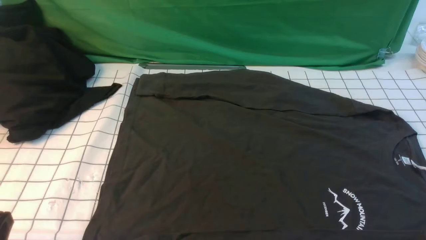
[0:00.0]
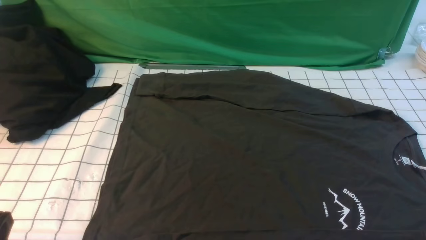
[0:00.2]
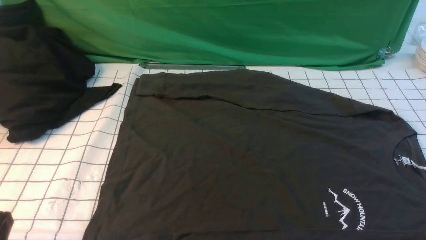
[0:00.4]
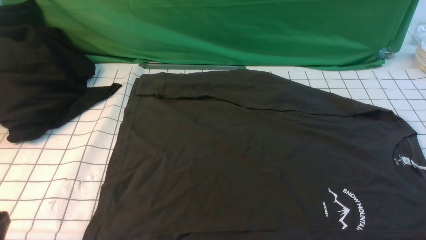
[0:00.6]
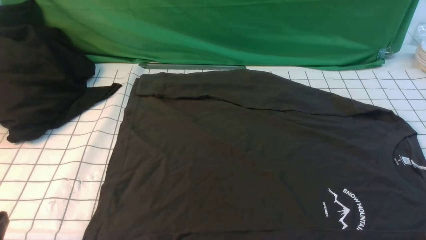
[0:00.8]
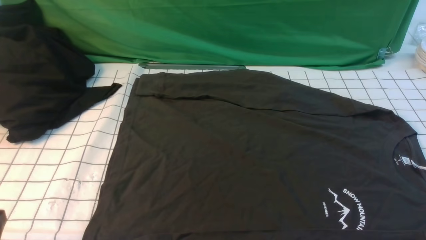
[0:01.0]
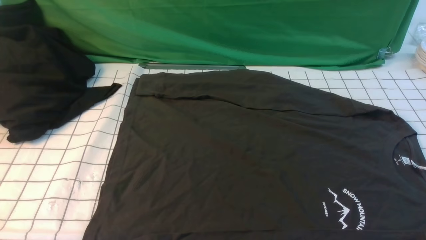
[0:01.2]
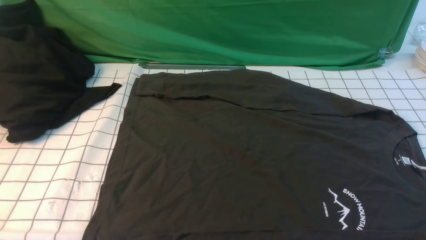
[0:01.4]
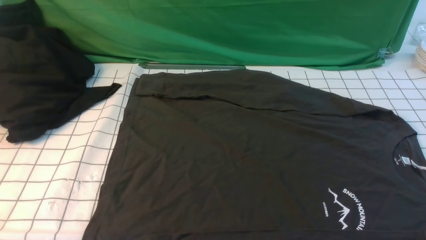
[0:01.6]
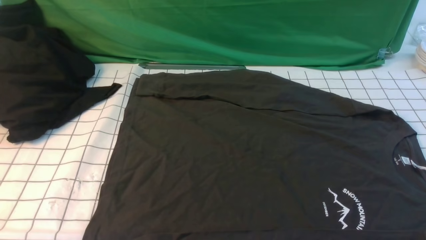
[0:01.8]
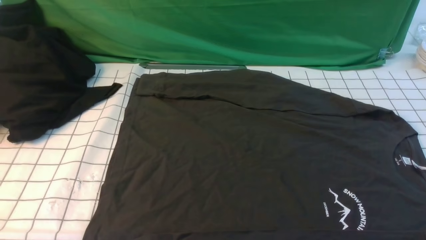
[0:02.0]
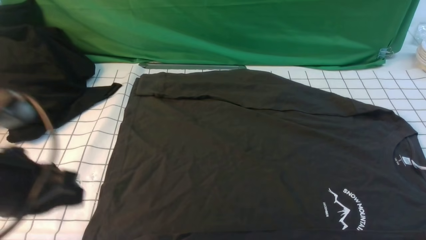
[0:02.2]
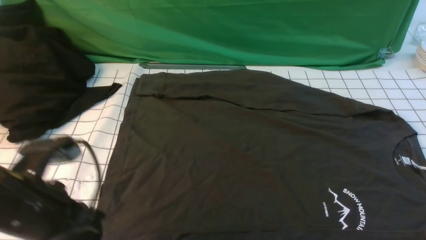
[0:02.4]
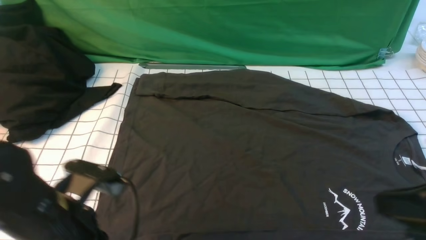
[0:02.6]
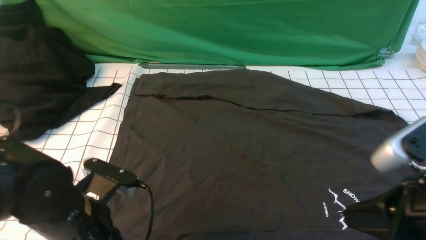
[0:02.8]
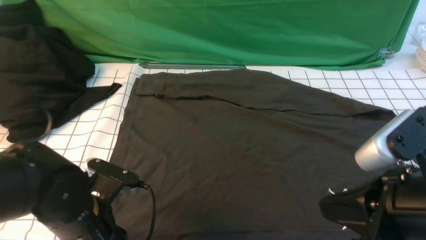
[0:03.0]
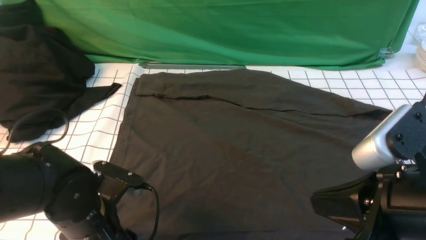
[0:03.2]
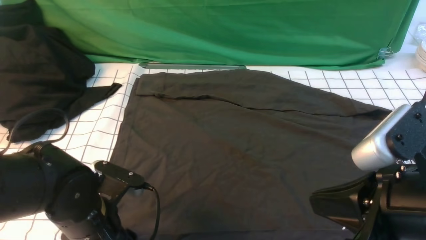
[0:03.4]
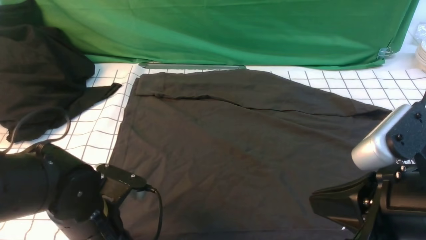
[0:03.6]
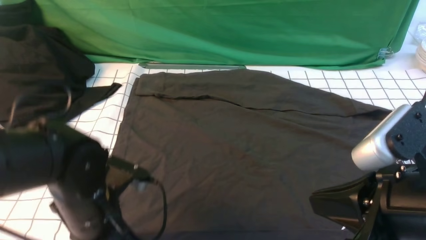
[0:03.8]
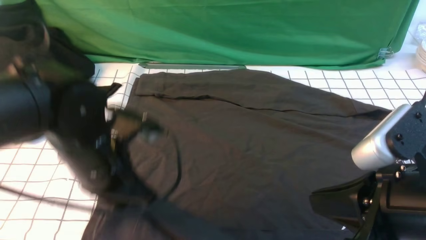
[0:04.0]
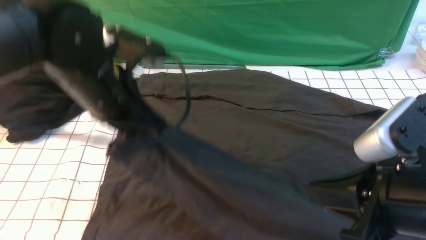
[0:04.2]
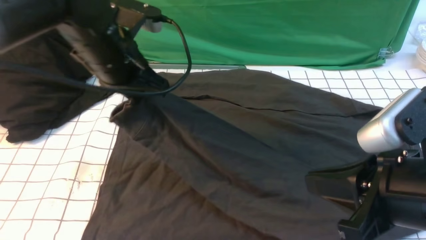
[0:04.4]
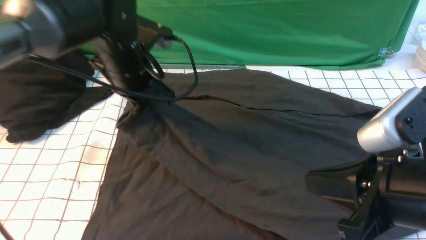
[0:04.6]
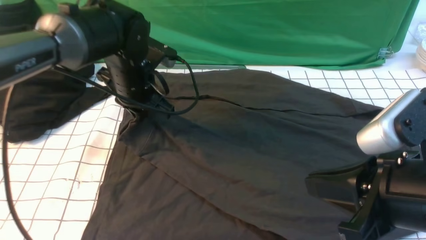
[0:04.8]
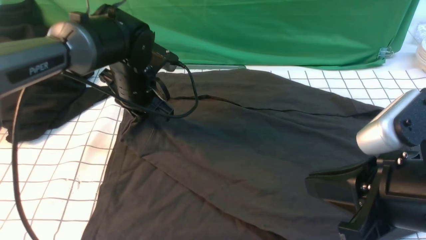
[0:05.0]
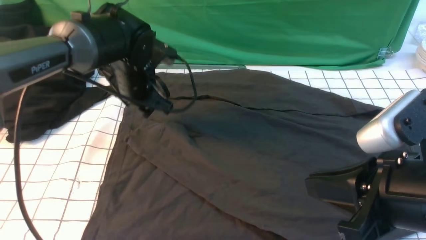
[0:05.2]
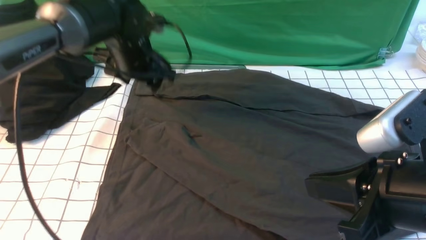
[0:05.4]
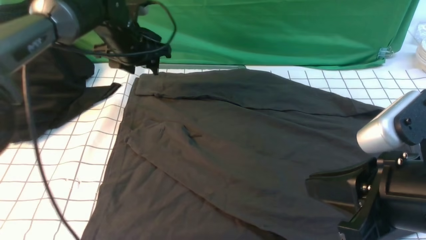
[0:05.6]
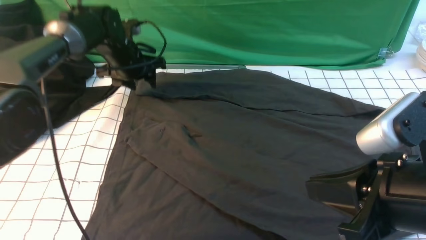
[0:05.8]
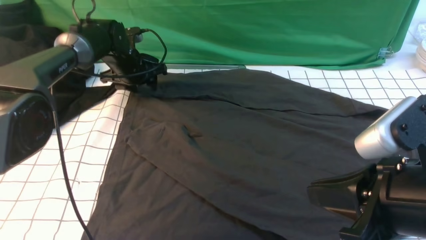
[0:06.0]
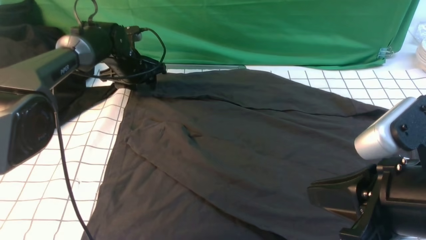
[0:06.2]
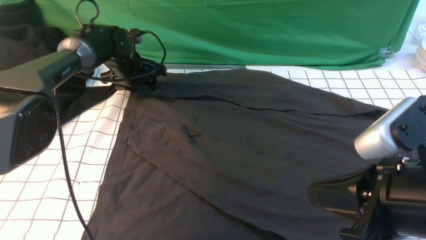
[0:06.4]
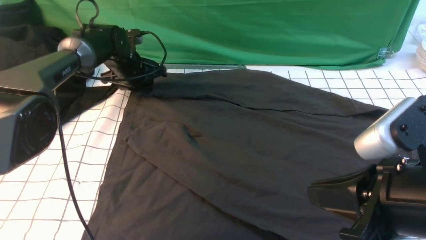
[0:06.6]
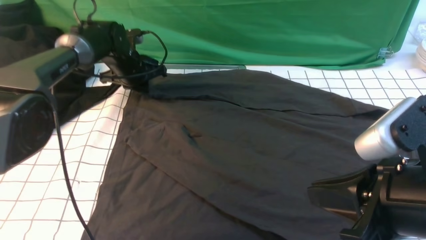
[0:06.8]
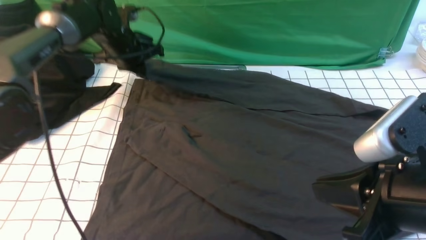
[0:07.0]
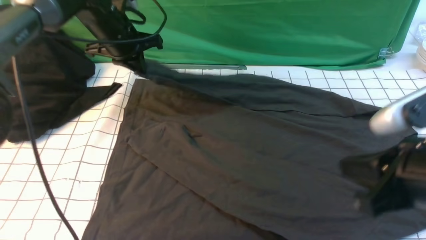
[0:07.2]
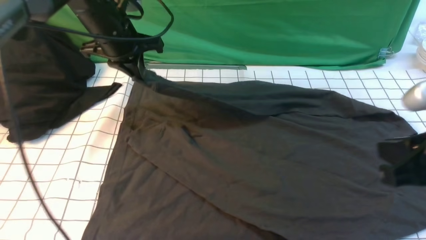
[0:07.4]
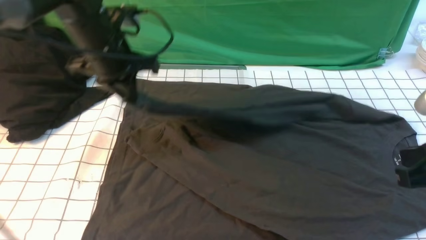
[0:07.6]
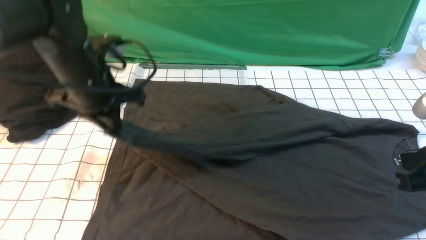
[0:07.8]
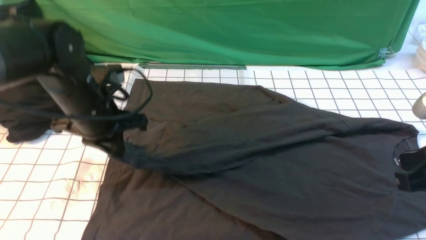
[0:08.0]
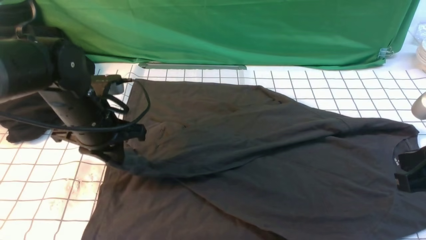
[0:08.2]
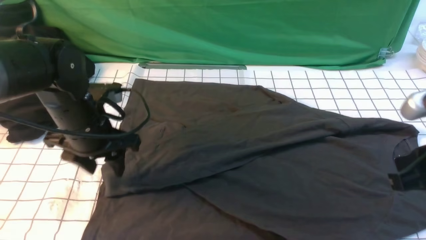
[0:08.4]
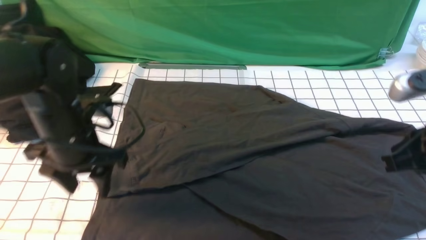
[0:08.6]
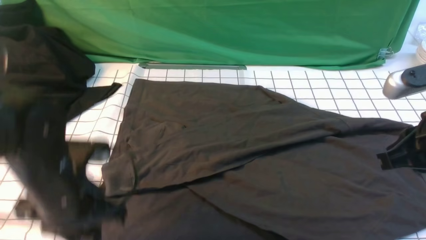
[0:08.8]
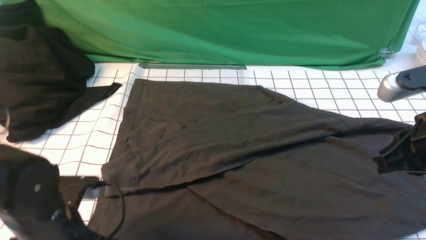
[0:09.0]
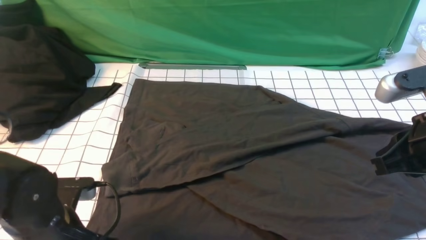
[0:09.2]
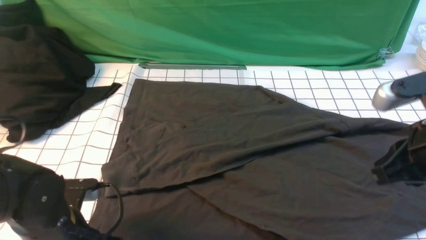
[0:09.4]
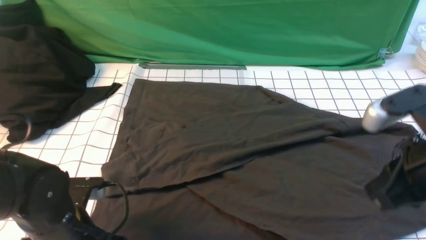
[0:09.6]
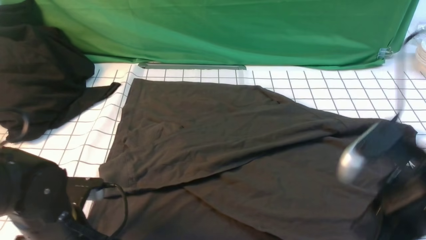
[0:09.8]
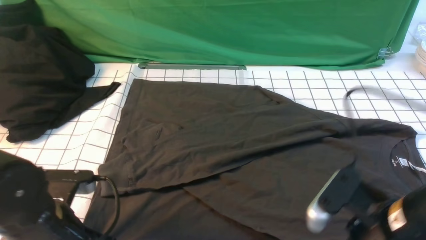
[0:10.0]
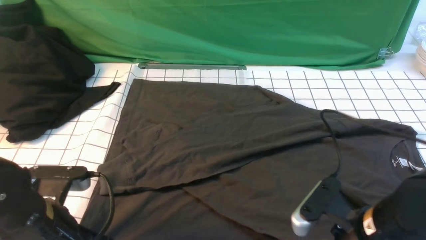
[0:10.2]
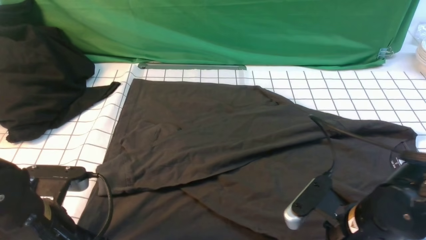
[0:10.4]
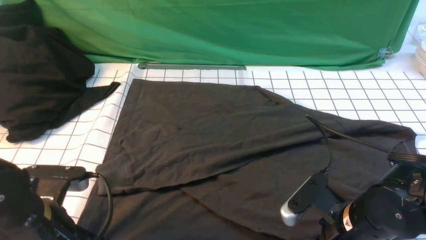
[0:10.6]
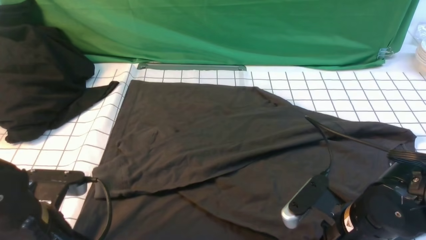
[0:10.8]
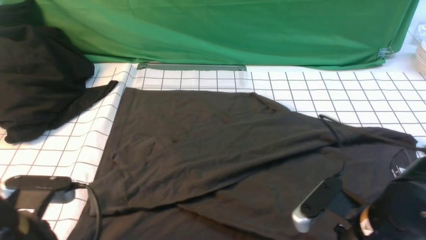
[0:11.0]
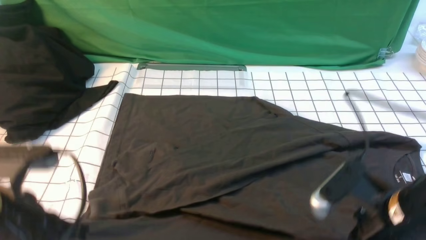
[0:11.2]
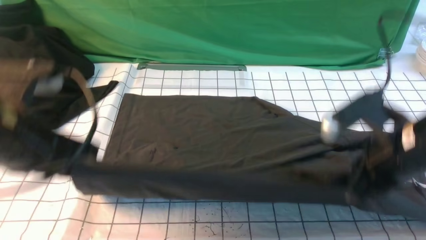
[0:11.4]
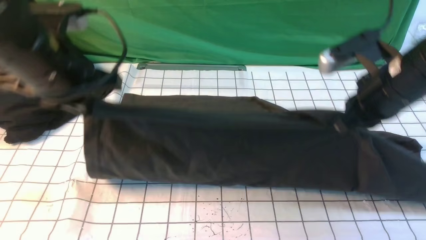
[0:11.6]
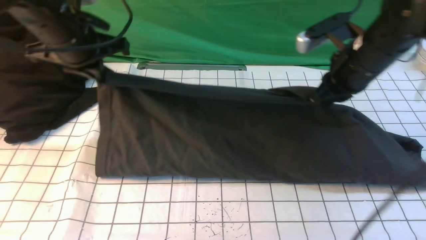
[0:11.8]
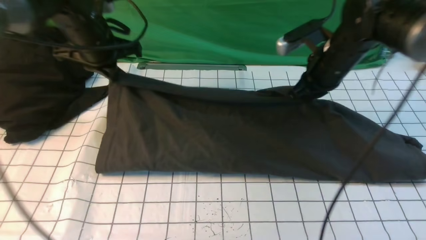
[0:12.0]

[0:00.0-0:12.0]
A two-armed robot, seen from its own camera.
Step, 0.0 to 3.8 s: use the left arm to clamp the cuff closest to it.
Step, 4.0 to 5.2 s: use the left arm to drag and place the cuff at the centered position on the left edge of the fabric.
Step, 5.4 to 6.8 s: use the left arm to clamp the cuff farthest from it.
Step, 7.2 to 8.2 s: use the left arm to drag and drop the cuff onto the cuff closest to the left arm.
Step, 8.4 to 11.0 s: use both arms simultaneously to clamp the lower edge of the clothing fabric.
1.6 to 3.0 s: The right gripper goes approximately 15 cm to the left, upward and forward, and closes. Meanwhile the left gripper shifts about 20 cm forward, downward and to the right, and opens.
3.0 to 4.4 s: The left gripper is displaced forward and upward by some 20 cm, and closes its fingers.
4.4 to 6.0 s: The left gripper heads forward and downward, covering some 25 cm, and opens.
6.0 to 7.6 s: The left gripper shifts about 20 cm backward and upward, and closes its fingers. The right gripper shifts roughly 5 cm to the right.
7.6 to 9.0 s: The left gripper is displaced backward and downward by about 25 cm, and opens up.
9.0 to 10.4 s: The right gripper goes about 15 cm downward and to the left, and opens up. The left gripper closes.
10.4 to 12.0 s: The two grippers go roughly 25 cm forward. The right gripper closes its fingers.

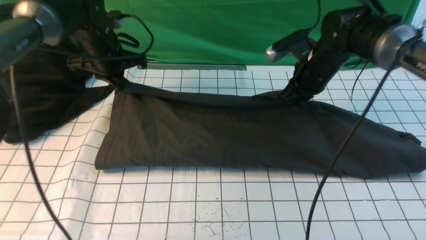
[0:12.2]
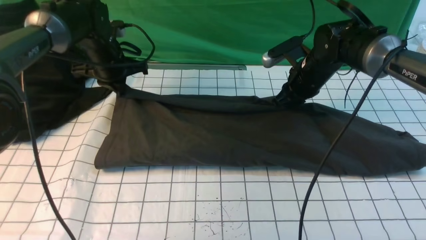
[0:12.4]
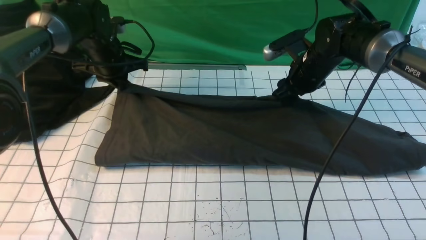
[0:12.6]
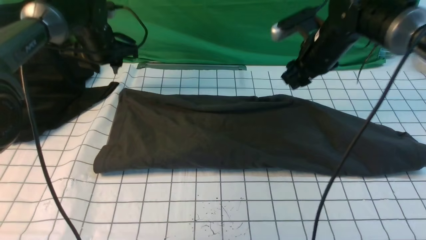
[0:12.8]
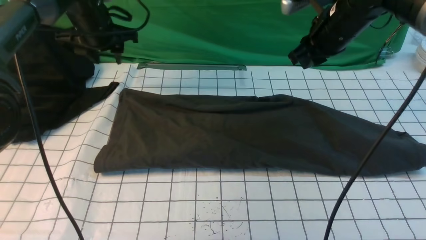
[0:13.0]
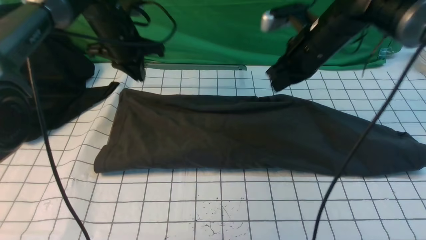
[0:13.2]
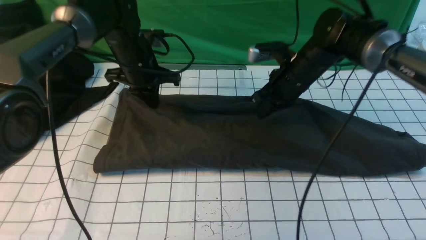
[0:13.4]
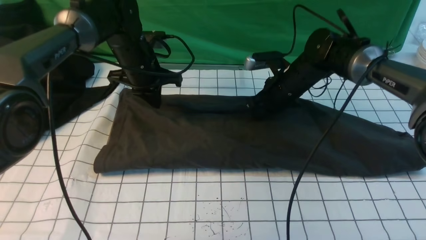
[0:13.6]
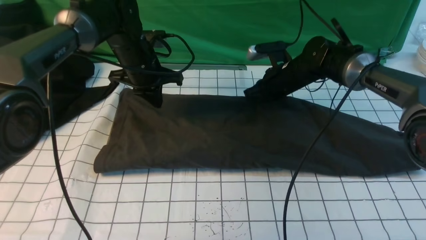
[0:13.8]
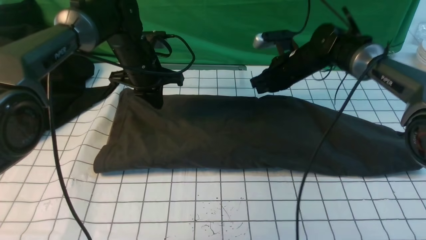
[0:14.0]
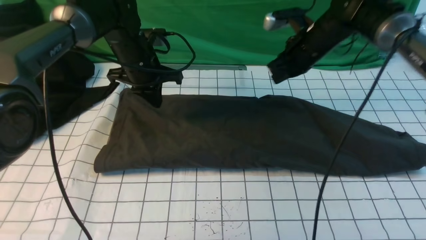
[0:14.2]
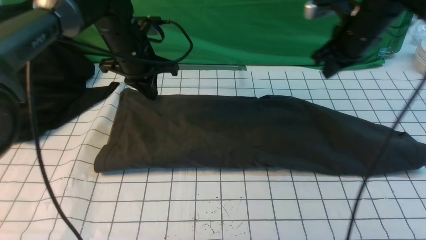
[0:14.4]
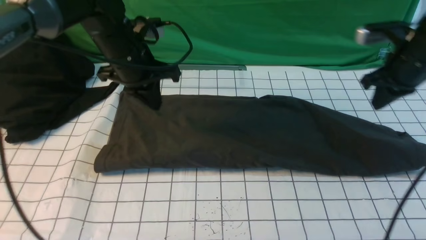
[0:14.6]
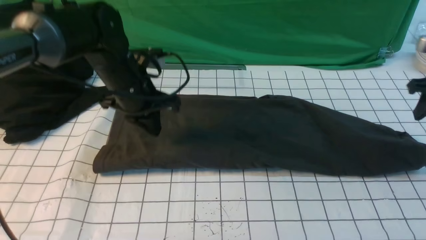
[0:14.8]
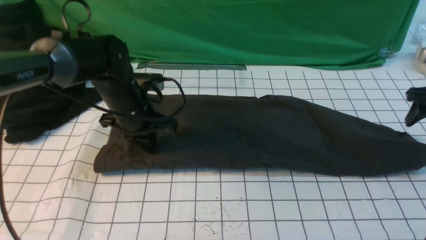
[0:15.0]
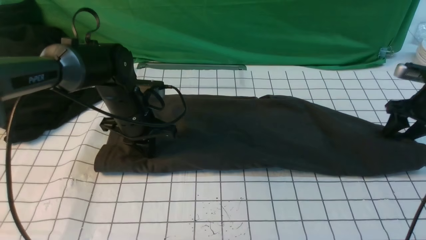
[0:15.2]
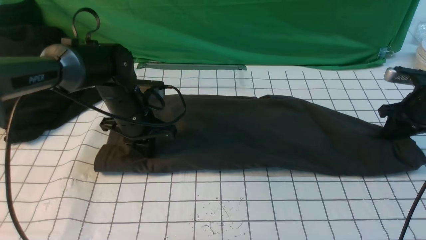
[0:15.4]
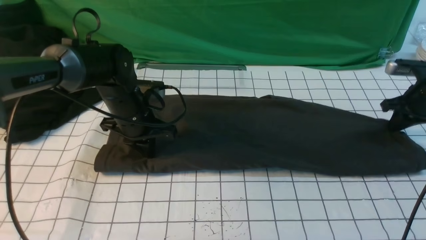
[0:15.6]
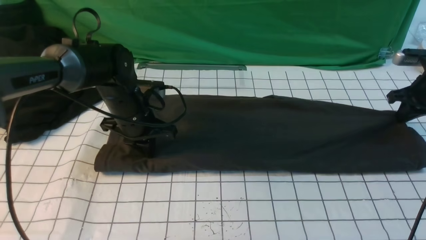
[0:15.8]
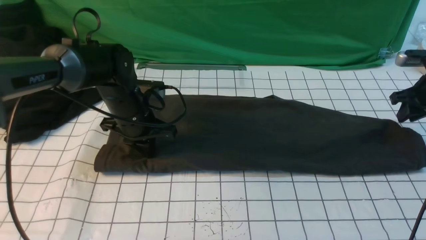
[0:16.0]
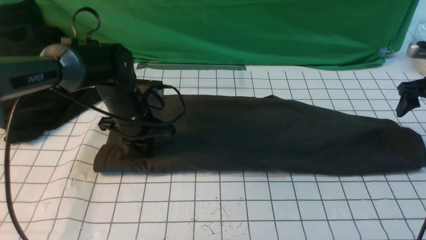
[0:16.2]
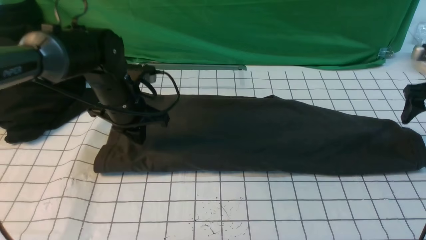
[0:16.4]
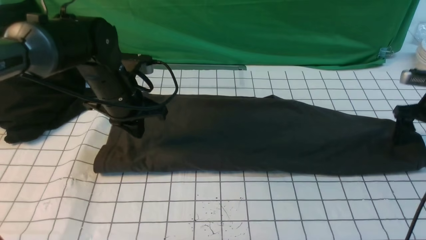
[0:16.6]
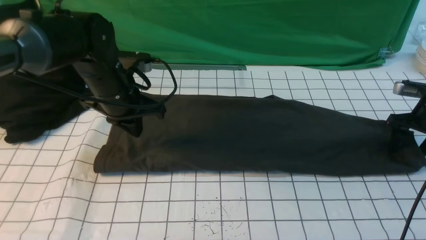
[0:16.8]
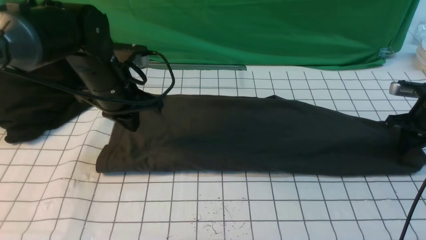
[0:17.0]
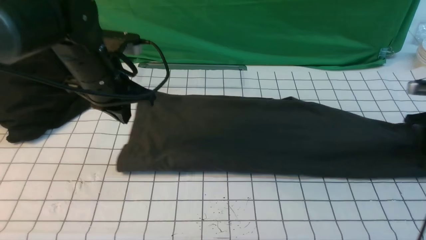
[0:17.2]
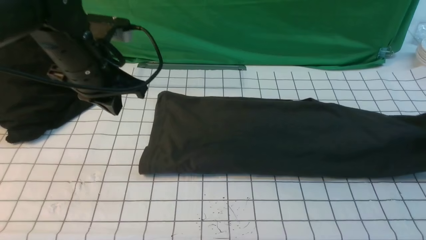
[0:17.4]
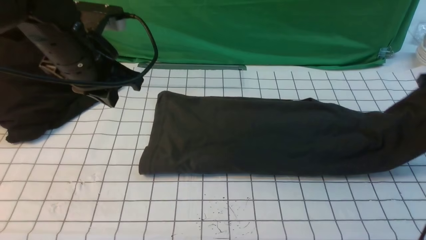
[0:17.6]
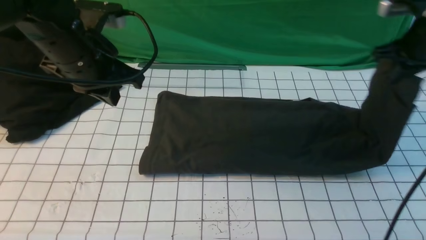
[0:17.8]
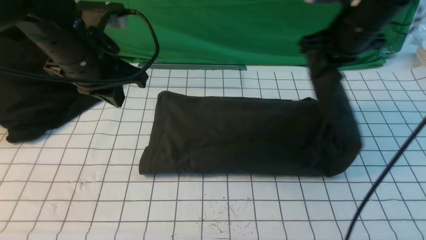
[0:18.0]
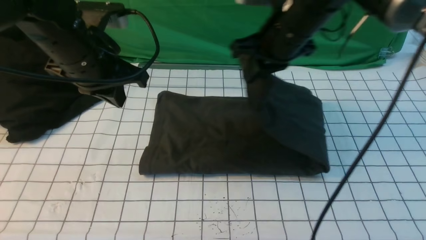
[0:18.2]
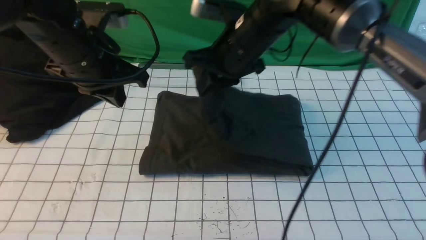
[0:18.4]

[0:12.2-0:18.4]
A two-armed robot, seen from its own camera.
Step, 12.2 to 14.2 s: use both arms to drag the lower edge of the fabric forward and fold it over the upper edge.
Step, 14.4 to 17.2 s: use the right arm to clamp the right edge of the fabric.
12.2 to 13.8 s: The right gripper changes place by some 5 cm, and opens, then closes once more. Meanwhile the left gripper goes about 5 cm to the right, and opens, then closes again.
13.8 to 15.4 s: The right gripper goes some 25 cm to the right, and opens its fingers. Meanwhile the left gripper goes roughly 10 cm backward and downward.
15.4 to 16.8 s: The right gripper opens its fingers. The left gripper goes approximately 5 cm upward.
16.8 to 18.4 s: The right gripper shifts about 35 cm to the left, and closes; the left gripper is displaced upward by roughly 10 cm.
